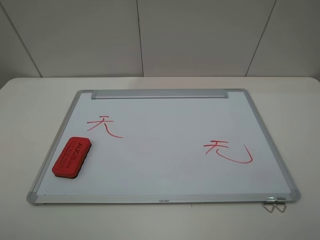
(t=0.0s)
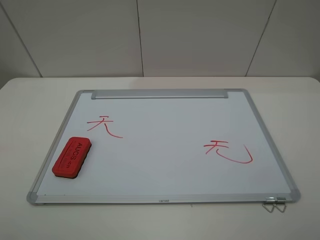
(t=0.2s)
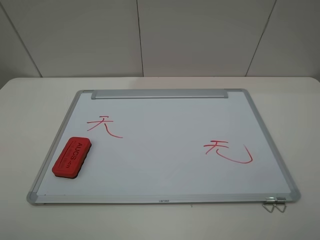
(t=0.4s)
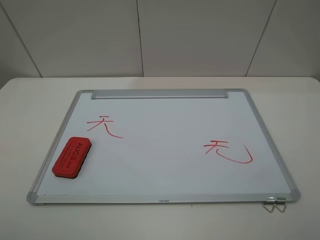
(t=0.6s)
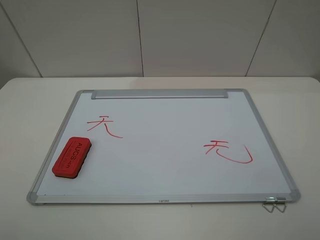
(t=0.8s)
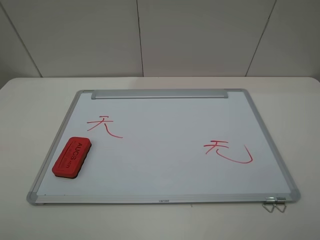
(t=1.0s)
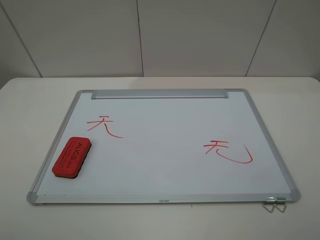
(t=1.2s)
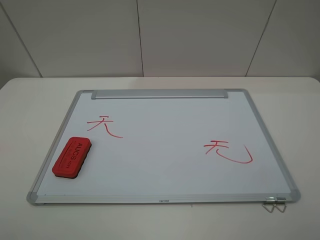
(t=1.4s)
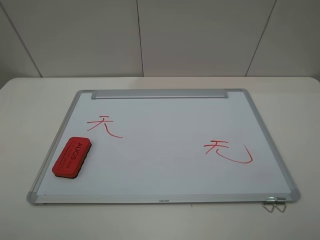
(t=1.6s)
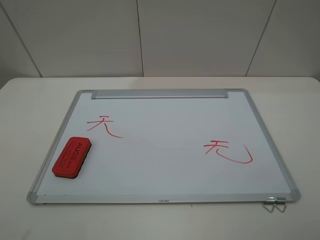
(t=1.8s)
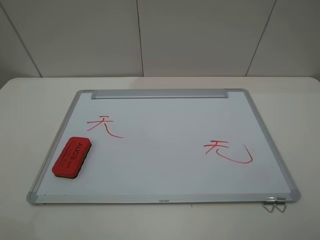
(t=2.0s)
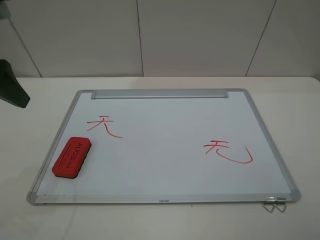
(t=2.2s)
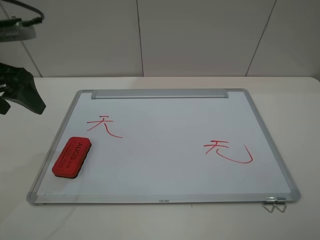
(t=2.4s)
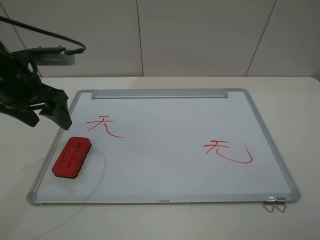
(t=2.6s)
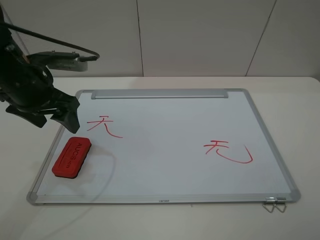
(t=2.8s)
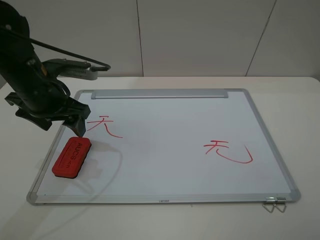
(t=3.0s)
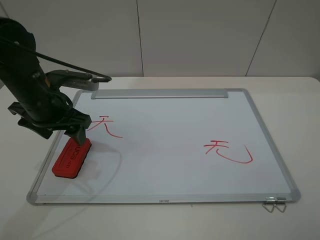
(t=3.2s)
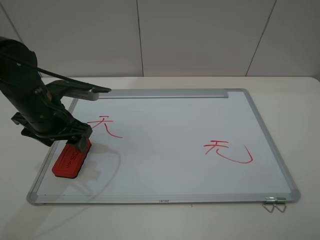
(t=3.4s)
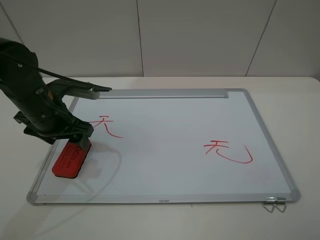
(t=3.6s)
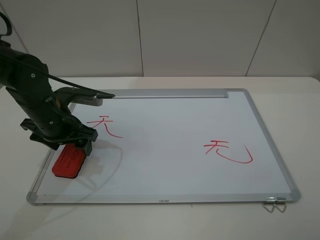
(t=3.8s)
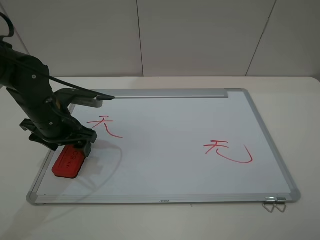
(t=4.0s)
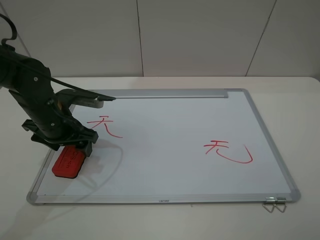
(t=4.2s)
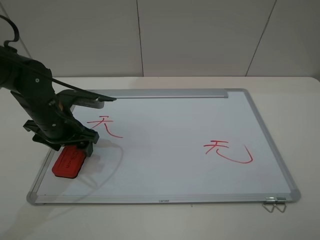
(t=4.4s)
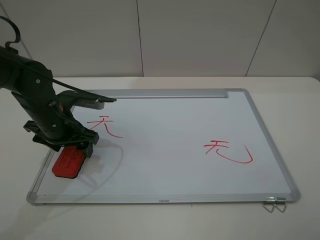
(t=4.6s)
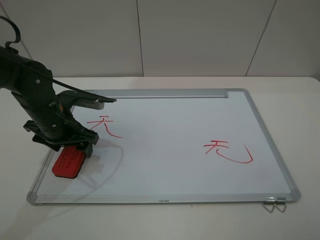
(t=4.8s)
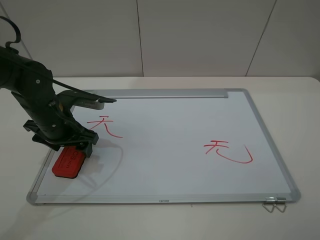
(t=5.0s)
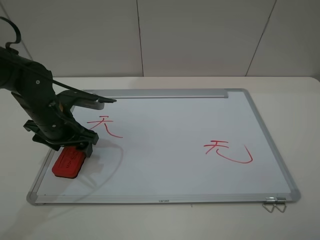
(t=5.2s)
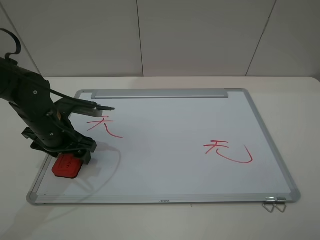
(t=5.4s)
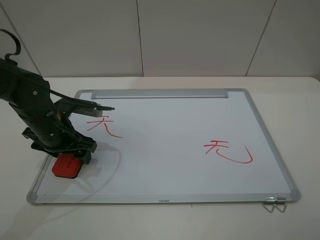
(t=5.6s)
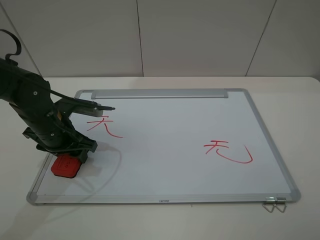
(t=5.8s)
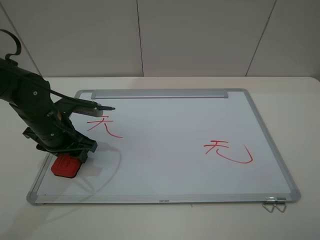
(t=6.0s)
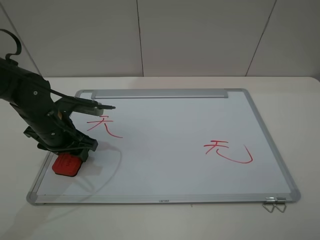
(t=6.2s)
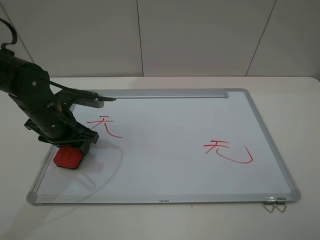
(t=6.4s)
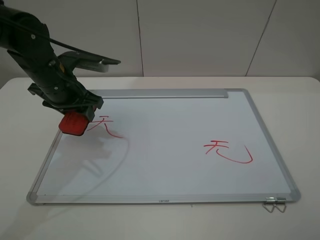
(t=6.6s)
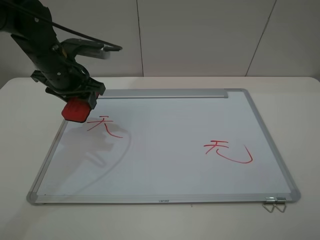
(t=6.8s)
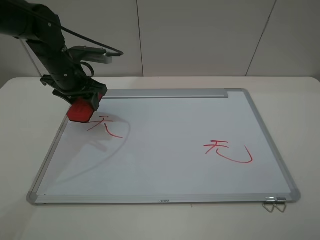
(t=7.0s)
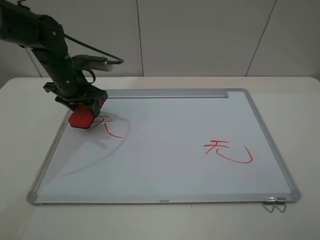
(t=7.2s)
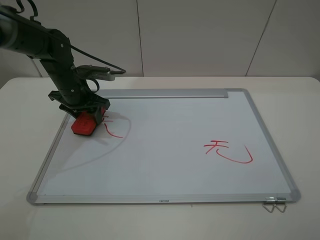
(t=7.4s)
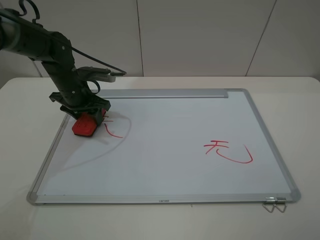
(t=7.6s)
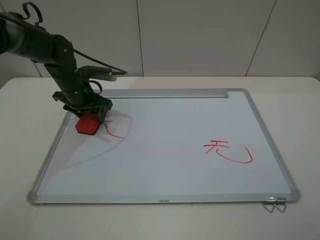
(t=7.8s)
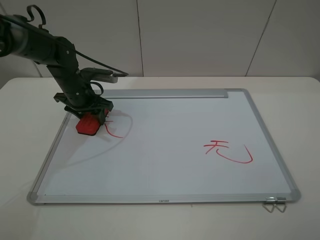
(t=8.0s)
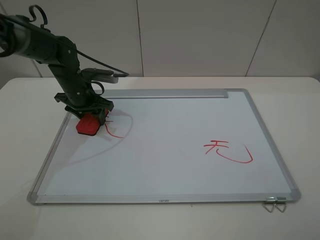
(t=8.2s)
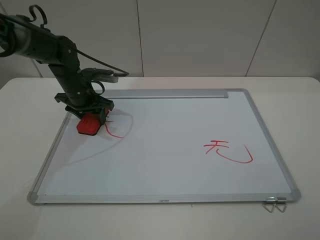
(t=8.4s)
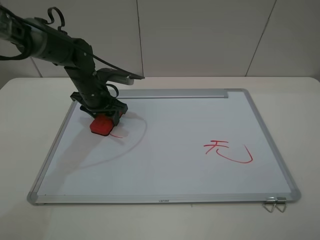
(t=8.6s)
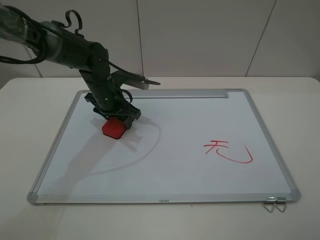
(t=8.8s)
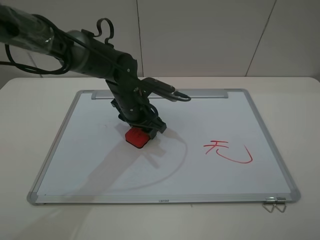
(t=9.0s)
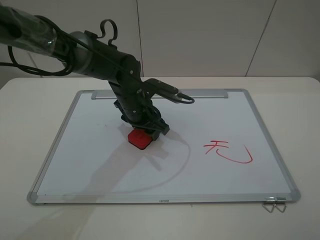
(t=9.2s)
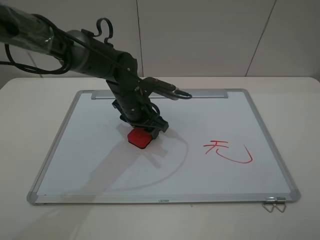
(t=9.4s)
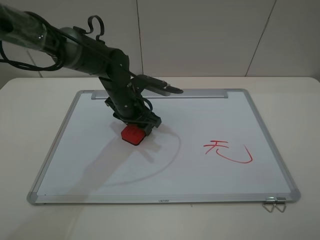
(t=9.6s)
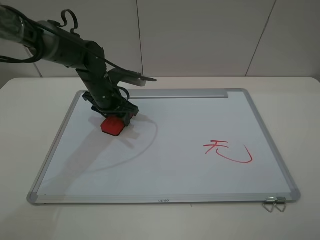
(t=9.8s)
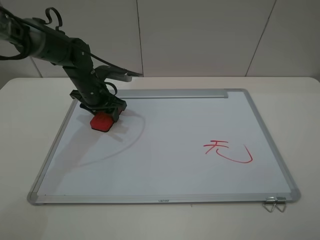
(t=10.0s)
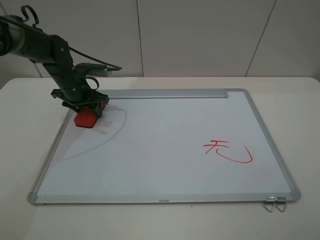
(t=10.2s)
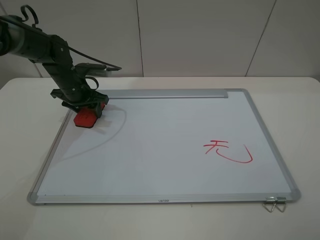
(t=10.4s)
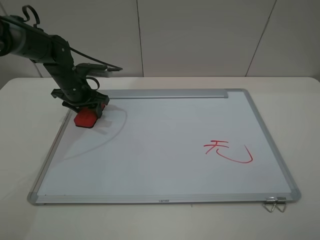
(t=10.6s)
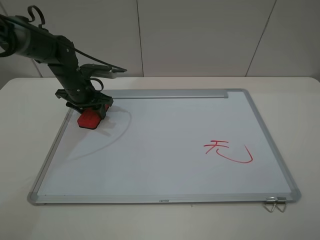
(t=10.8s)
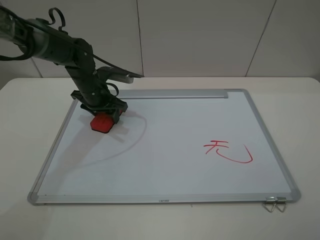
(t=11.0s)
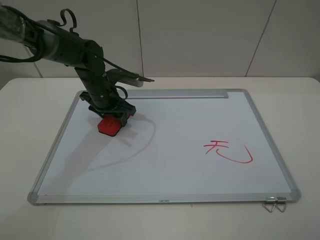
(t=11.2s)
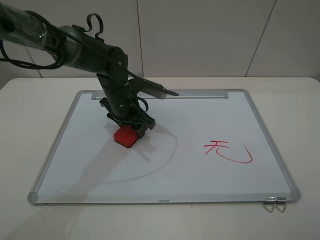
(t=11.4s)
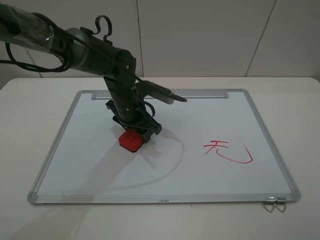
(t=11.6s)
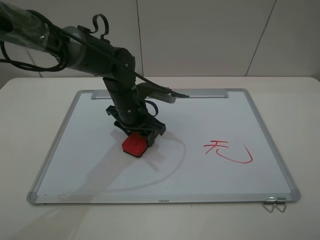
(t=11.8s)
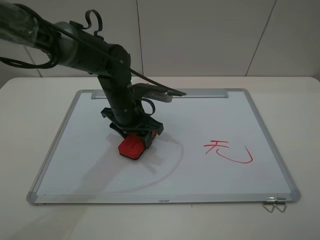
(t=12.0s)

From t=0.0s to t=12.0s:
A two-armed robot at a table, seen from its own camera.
Step, from t=0.0s to t=5.8s: Grasp the eraser with the left gripper.
Step, from t=6.0s to t=12.0s: Grasp the eraser and wipe the blackboard with the left gripper.
From t=1.6s to t=3.0s: The left gripper travels forward and downward by roughly 30 cm.
From t=3.0s to t=4.4s: The left gripper is displaced downward by about 5 cm.
From t=4.4s to t=6.0s: The left gripper closes its fingers.
From t=6.0s to t=7.6s: The left gripper goes some 10 cm forward.
From t=7.6s to t=9.0s: The left gripper heads to the right, covering roughly 15 cm.
From t=9.0s to t=10.4s: The left gripper moves to the left and forward, some 20 cm.
From t=10.4s to t=12.0s: The left gripper heads to the right and backward, covering about 20 cm.

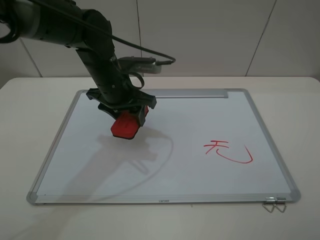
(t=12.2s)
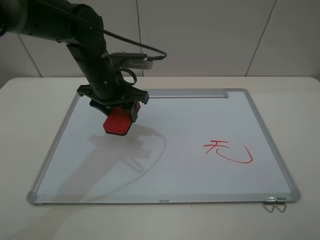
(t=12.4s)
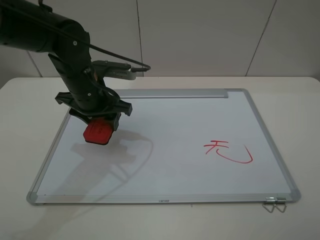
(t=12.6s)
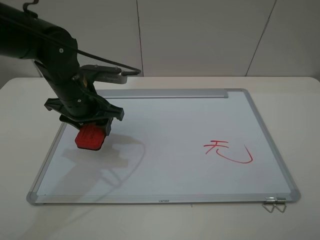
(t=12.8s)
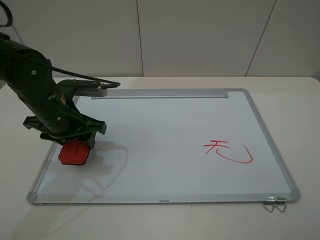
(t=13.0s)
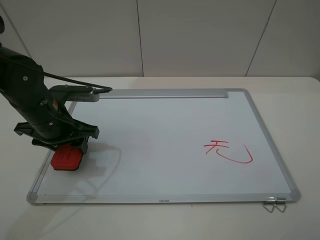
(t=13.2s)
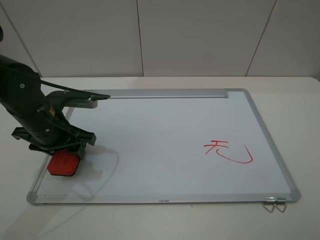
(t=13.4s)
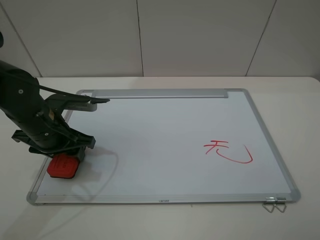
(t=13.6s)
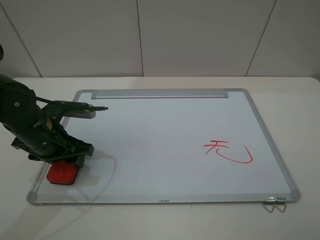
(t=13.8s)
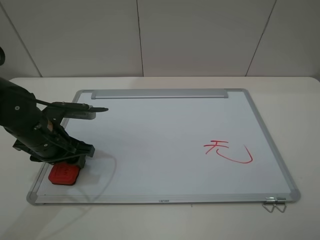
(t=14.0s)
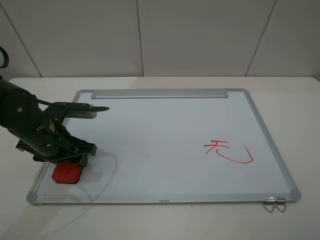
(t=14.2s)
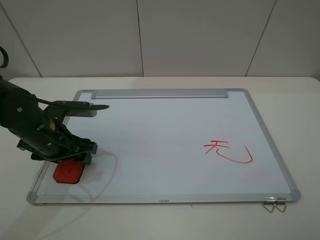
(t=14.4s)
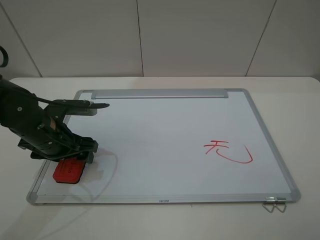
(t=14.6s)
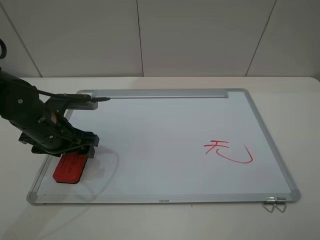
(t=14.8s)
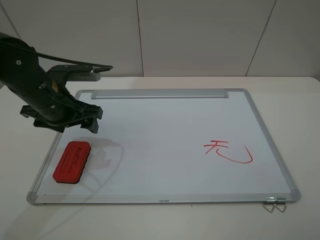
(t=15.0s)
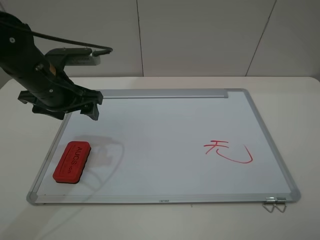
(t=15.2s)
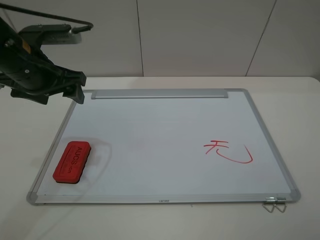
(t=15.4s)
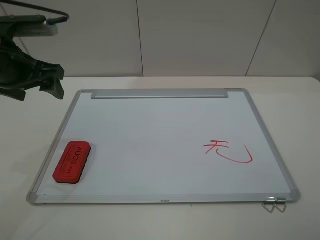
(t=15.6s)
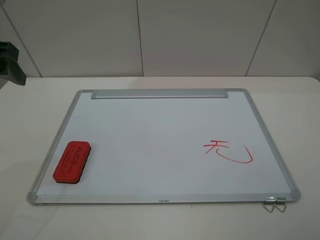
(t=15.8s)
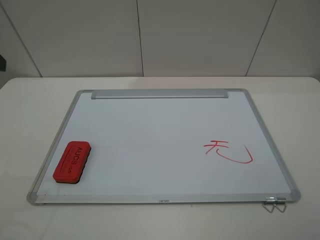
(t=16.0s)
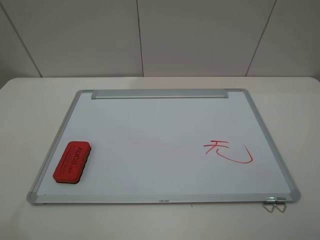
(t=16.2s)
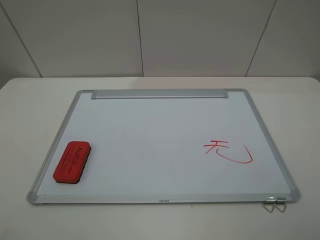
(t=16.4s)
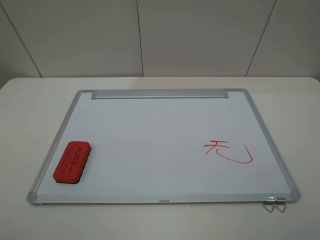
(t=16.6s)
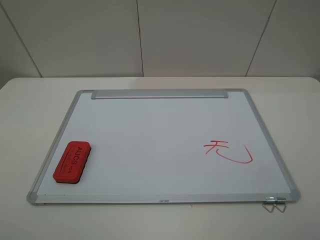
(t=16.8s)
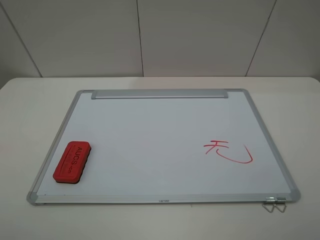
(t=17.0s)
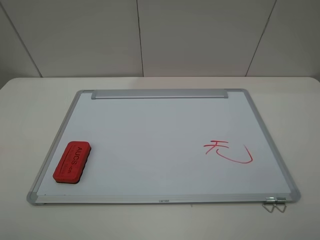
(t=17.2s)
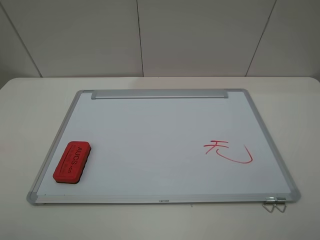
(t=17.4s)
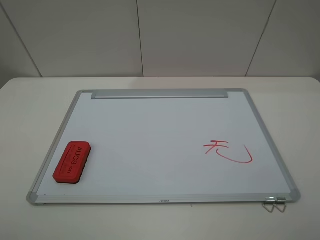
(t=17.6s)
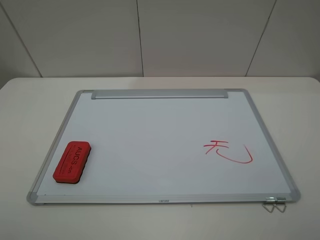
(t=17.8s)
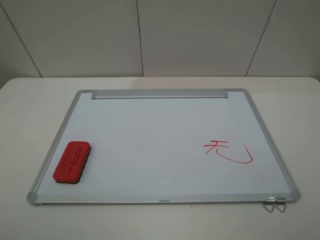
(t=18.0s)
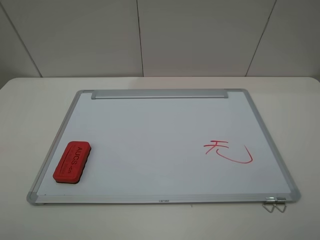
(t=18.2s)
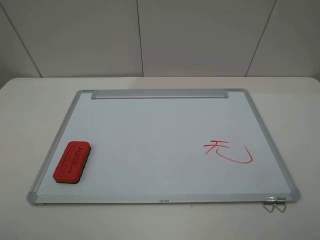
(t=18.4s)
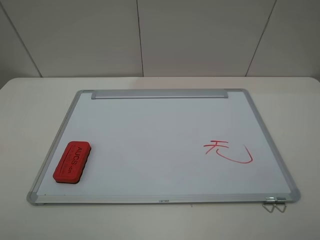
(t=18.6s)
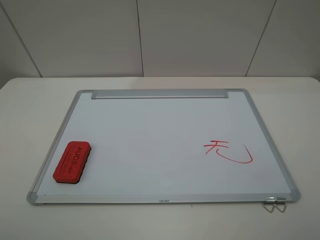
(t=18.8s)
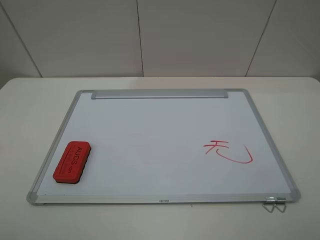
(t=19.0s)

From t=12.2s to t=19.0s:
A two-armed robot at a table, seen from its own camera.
Step, from t=12.2s to t=14.8s: Place the eraser with the left gripper.
From t=12.2s to t=13.6s: The left gripper goes about 15 cm to the left and backward.
From t=13.6s to t=15.0s: The left gripper opens up.
From t=15.0s to t=16.2s: The left gripper moves upward, backward and to the left, some 30 cm.
From t=17.6s to t=19.0s: The two grippers keep their place.
